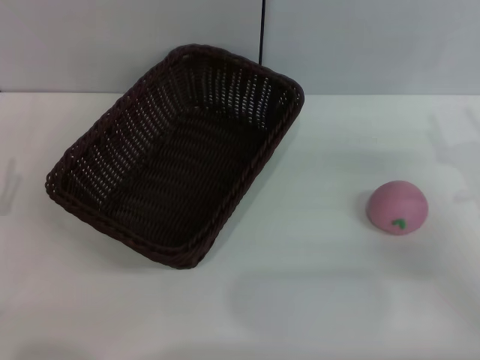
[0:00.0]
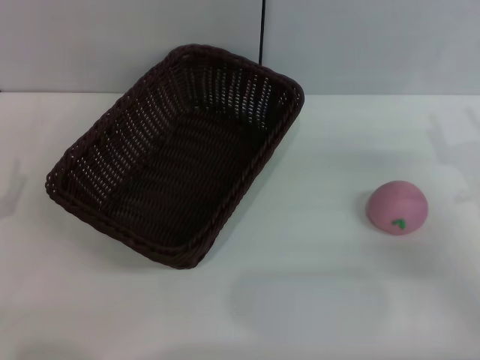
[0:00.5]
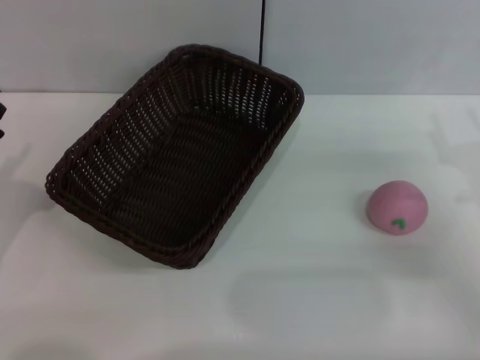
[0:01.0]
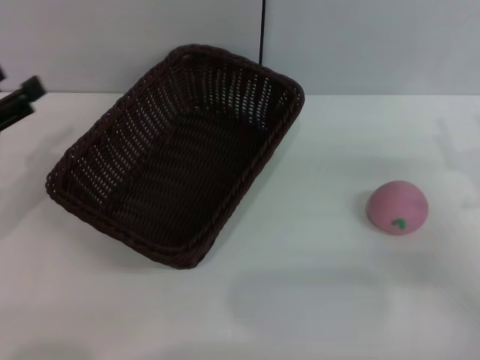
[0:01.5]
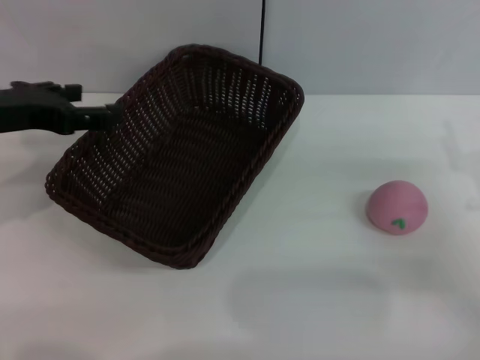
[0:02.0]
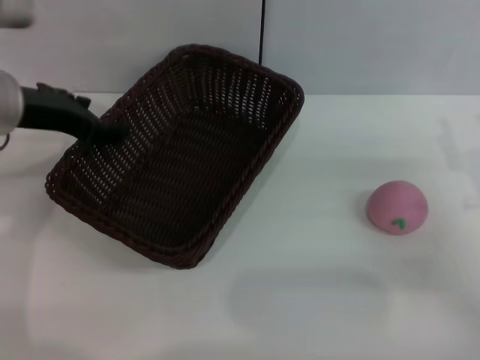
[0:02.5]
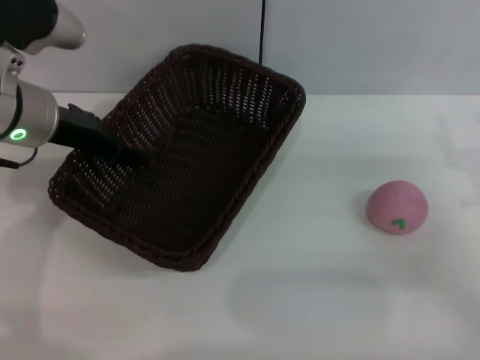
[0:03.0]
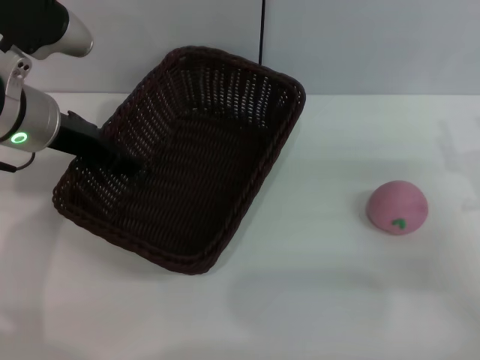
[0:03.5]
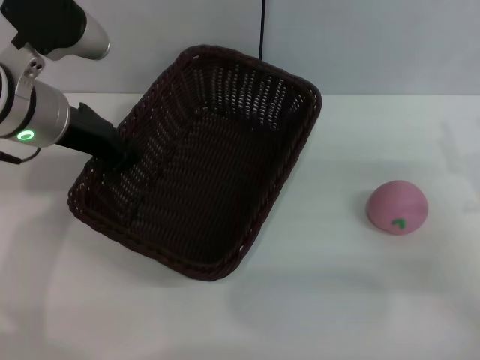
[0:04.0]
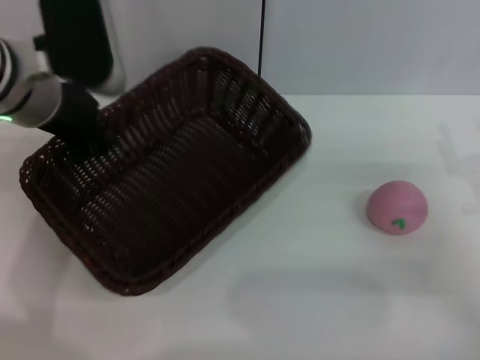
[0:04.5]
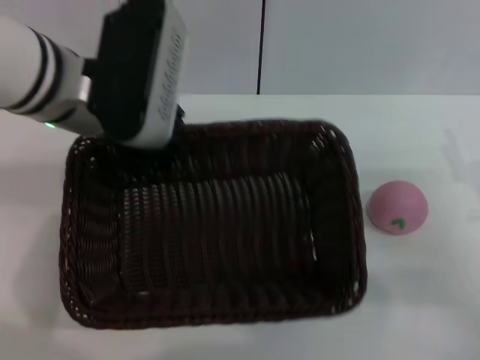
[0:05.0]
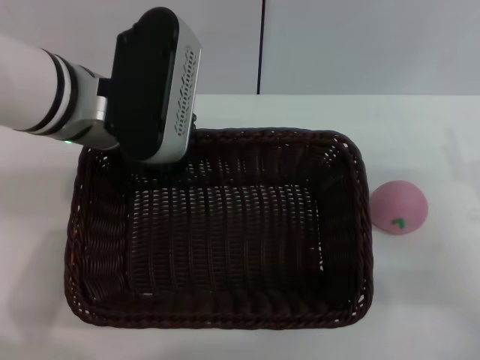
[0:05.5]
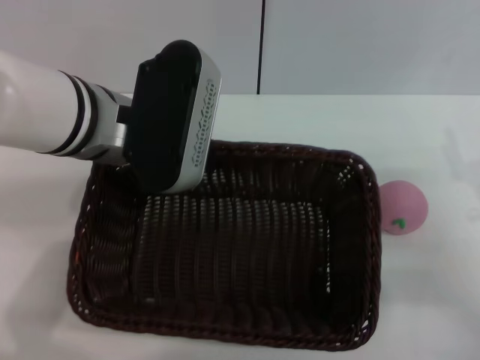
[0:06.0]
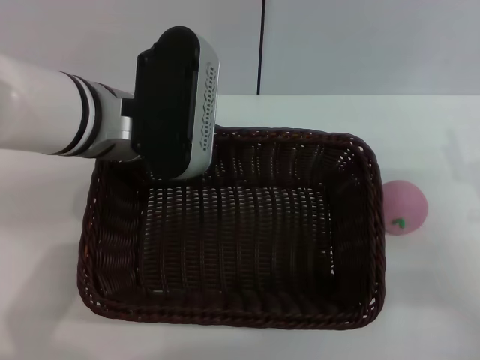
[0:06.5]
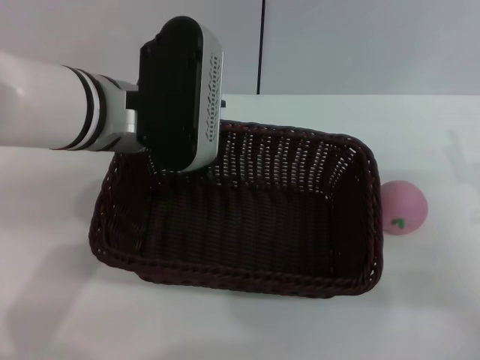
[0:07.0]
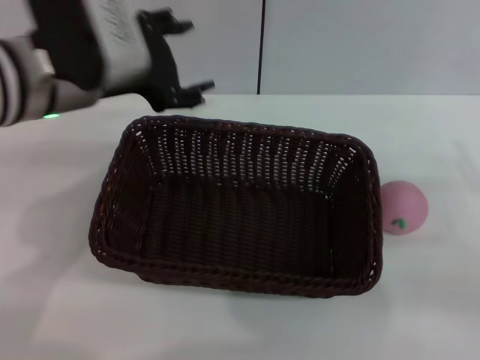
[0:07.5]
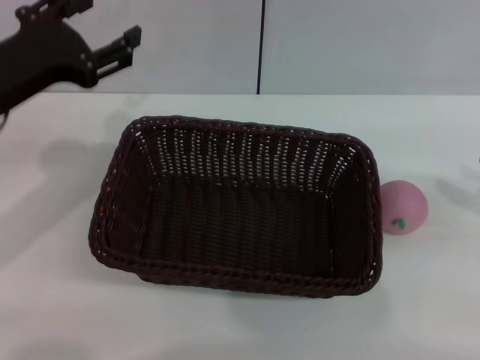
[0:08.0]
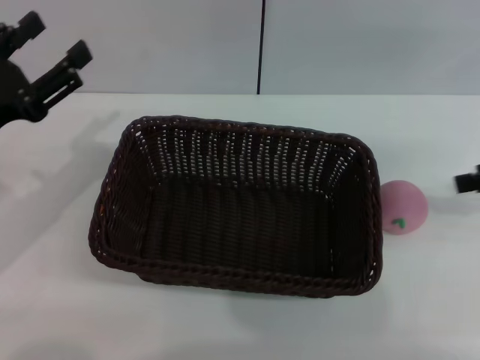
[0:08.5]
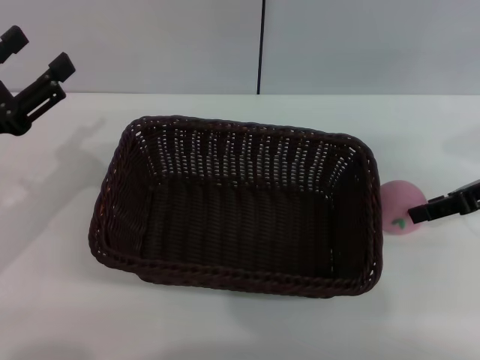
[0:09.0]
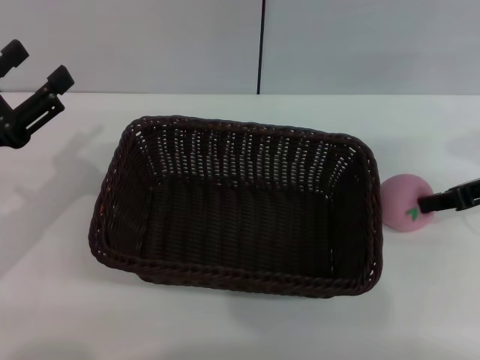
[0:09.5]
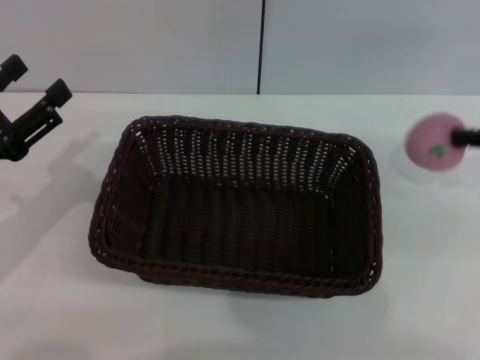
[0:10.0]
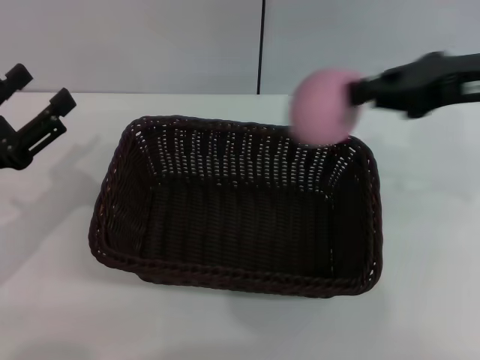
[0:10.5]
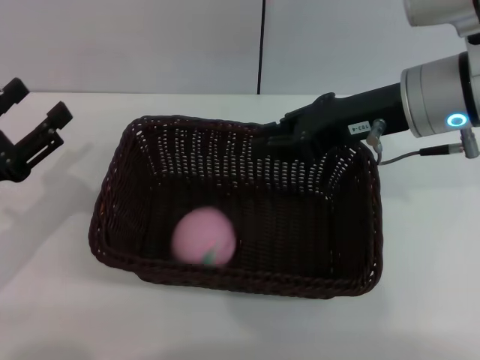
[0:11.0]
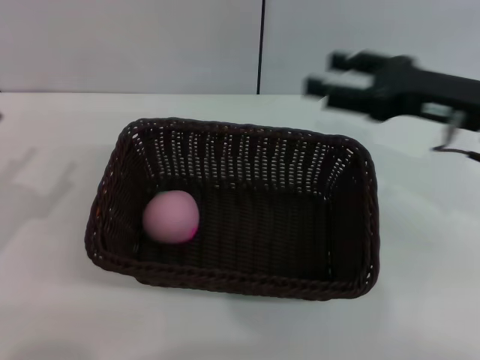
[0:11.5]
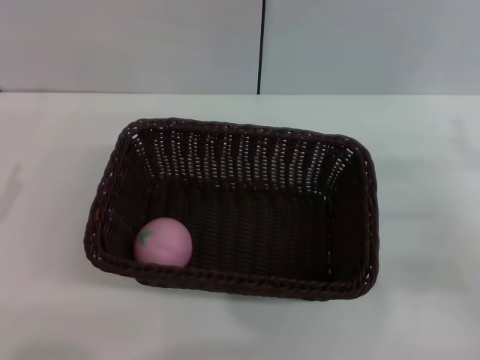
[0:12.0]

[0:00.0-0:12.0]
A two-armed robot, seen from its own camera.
Step, 0:00.0 to 0:04.0: Pick up the dark basket with the left gripper.
Step, 0:04.5 to 0:07.0: Place the dark basket in the center of view with the right gripper.
Step, 0:07.5 to 0:09.5: Pick up the peach with the left gripper.
0:00.0 to 0:02.0: The left gripper shifts about 20 cm upward and forward.
0:02.0 to 0:04.0: The left gripper moves to the right, about 5 cm, and closes up.
0:04.0 to 0:06.0: The left gripper goes approximately 5 cm to the right.
0:06.0 to 0:08.0: The left gripper goes roughly 10 cm to the left, and opens. Meanwhile the right gripper shifts approximately 15 cm upward and to the right.
0:08.0 to 0:10.0: The right gripper shifts some 5 cm forward, and closes, while the left gripper shifts some 10 cm downward, backward and to the left.
0:10.0 to 0:12.0: The left gripper moves backward and to the left, approximately 10 cm. Meanwhile the right gripper is displaced downward and backward by roughly 15 cm, and opens its fingers.
